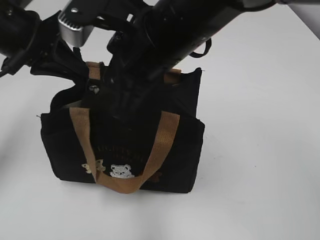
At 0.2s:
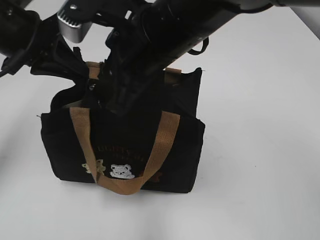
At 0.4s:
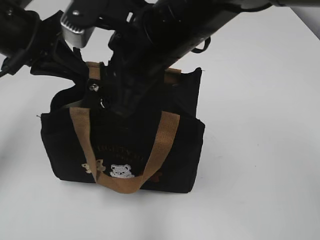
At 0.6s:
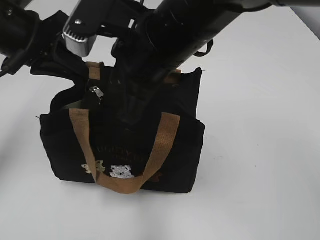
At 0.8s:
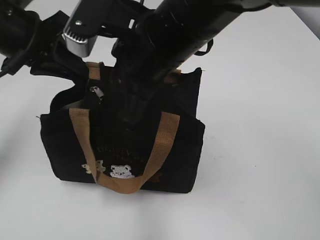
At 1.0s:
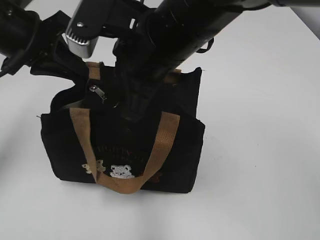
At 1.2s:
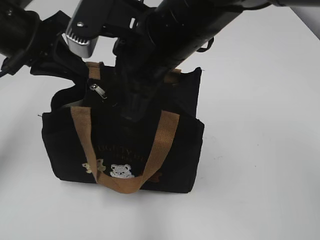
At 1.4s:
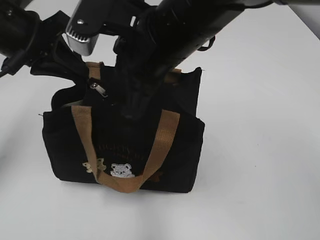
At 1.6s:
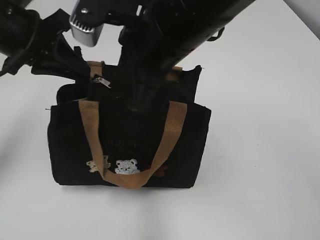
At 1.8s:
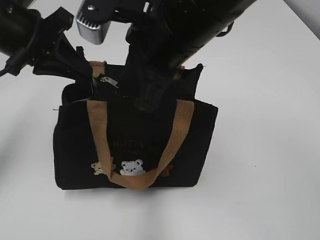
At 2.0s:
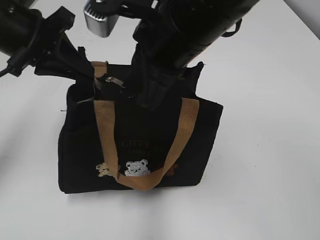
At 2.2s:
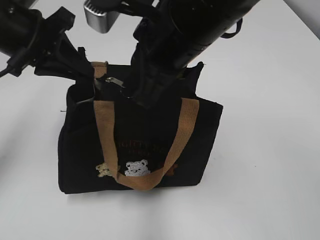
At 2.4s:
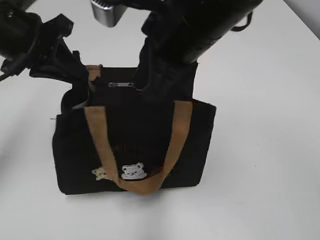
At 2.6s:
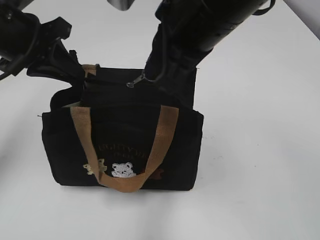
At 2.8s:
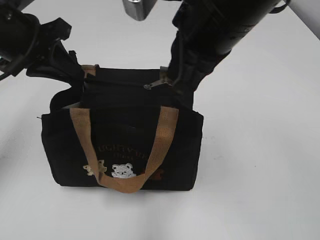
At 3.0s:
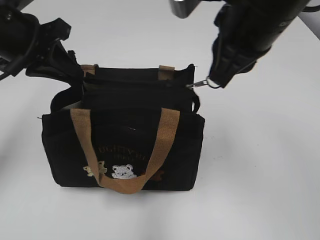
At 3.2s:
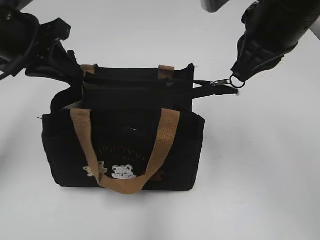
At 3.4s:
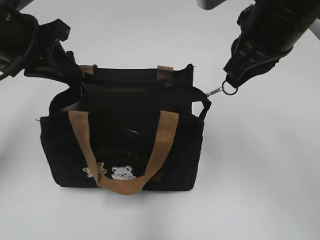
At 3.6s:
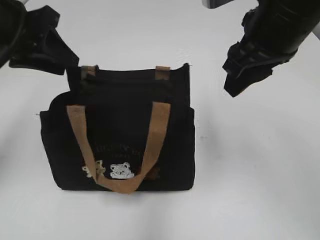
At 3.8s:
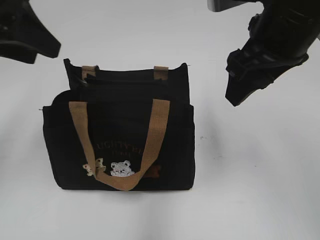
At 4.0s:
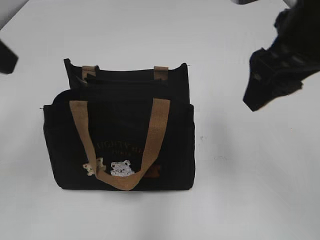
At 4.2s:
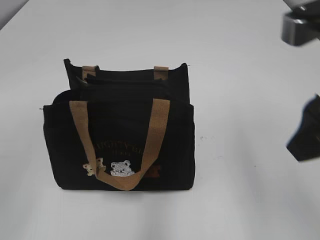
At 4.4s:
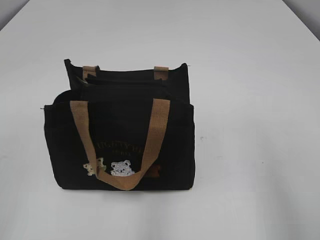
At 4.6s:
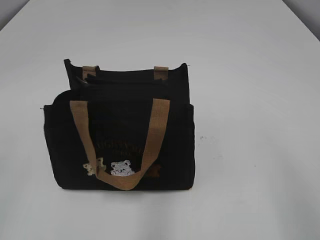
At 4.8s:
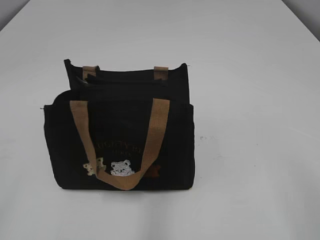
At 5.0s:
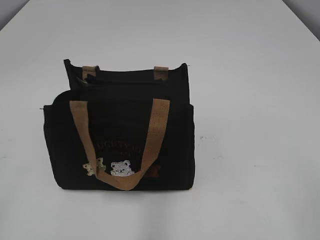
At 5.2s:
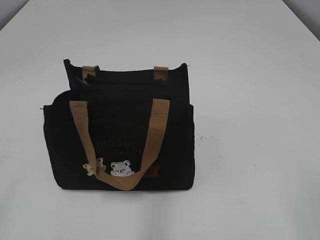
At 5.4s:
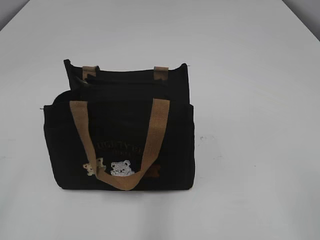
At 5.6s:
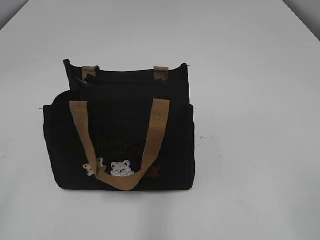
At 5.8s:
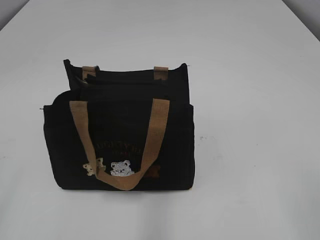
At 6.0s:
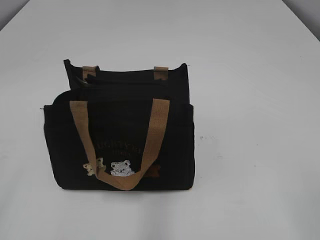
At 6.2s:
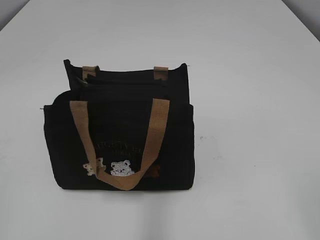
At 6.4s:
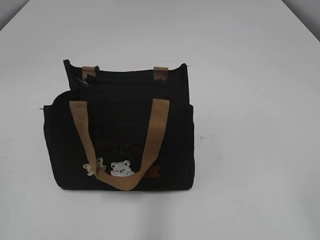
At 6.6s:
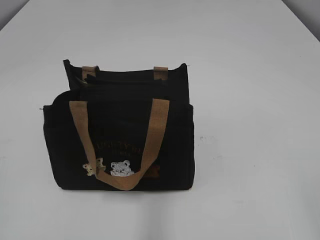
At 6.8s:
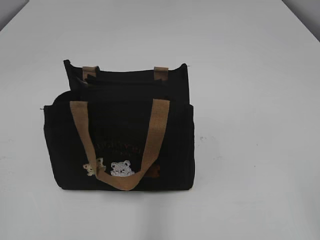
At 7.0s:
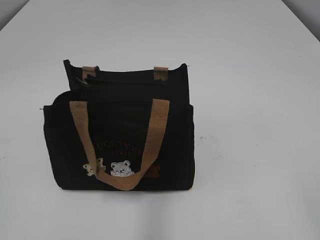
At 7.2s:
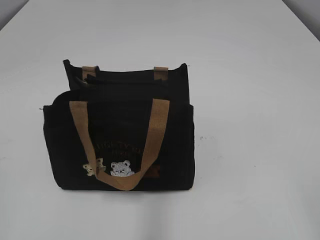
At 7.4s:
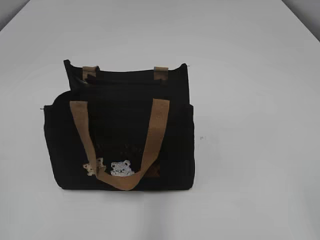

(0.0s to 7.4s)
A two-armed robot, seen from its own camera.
Step, 0.0s - 3.4s: Pull open the zipper with your right hand.
0.0s - 1.4s: The right gripper closes its fingers.
1.4s - 3.0s: The right gripper travels to the right by some 10 cm.
3.0s - 4.4s: The right gripper goes approximately 20 cm backward and to the right, and opens its fingers, while the left gripper is displaced backward by approximately 25 cm, and opens its fingers.

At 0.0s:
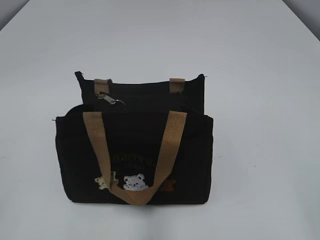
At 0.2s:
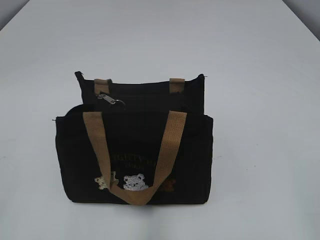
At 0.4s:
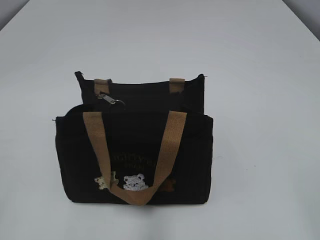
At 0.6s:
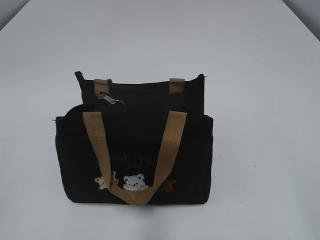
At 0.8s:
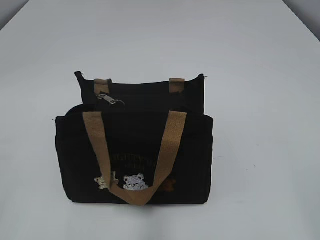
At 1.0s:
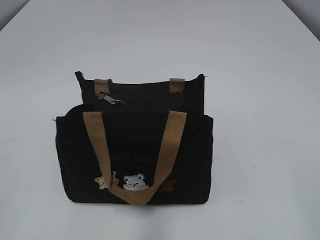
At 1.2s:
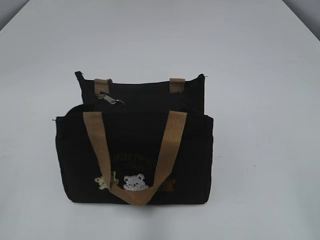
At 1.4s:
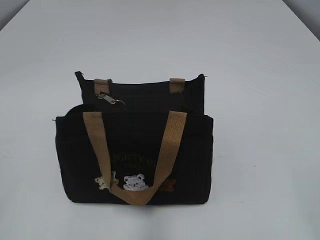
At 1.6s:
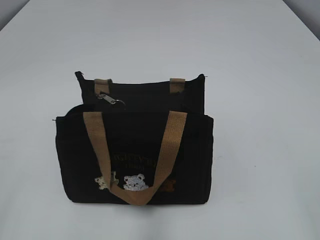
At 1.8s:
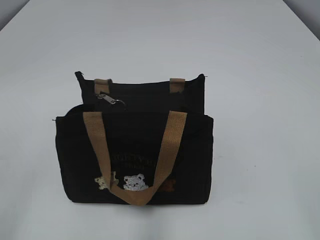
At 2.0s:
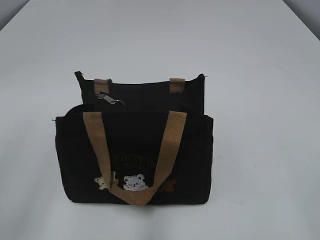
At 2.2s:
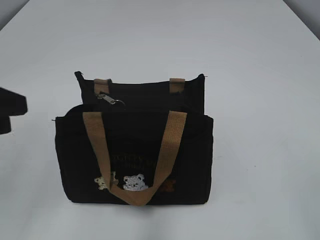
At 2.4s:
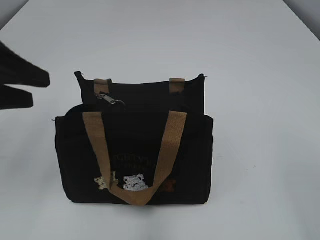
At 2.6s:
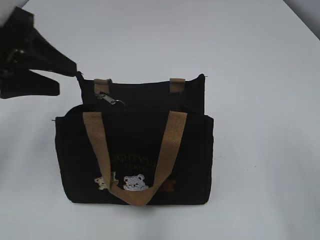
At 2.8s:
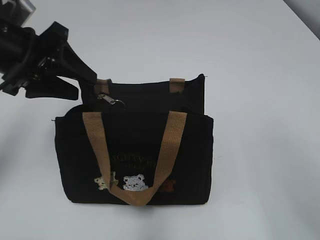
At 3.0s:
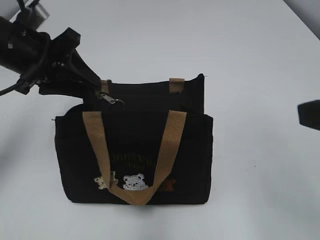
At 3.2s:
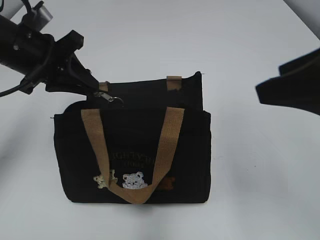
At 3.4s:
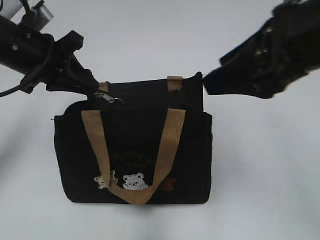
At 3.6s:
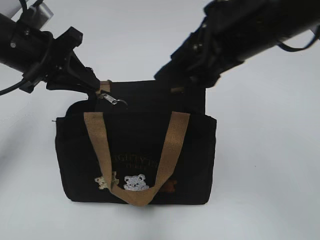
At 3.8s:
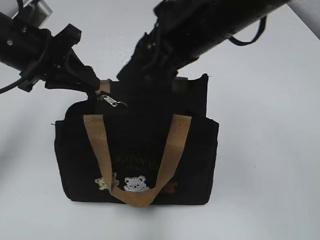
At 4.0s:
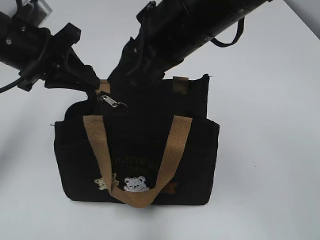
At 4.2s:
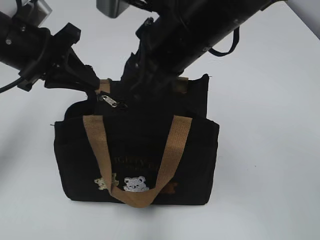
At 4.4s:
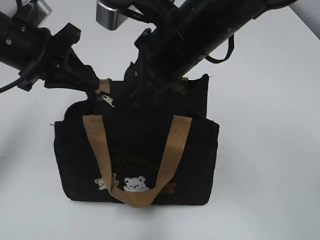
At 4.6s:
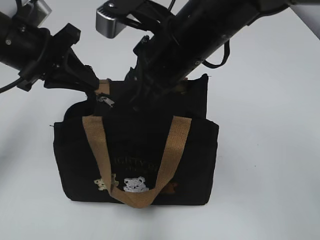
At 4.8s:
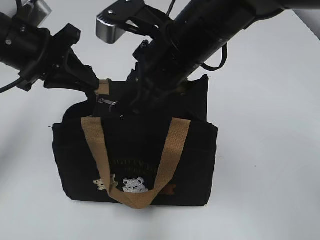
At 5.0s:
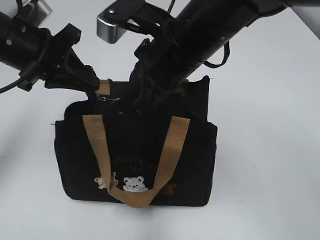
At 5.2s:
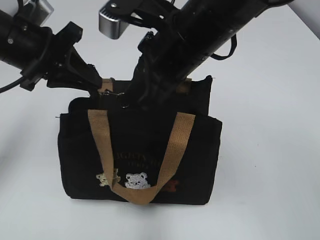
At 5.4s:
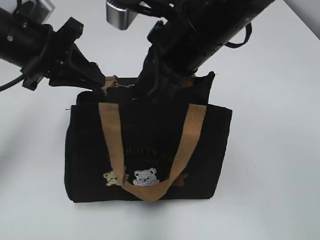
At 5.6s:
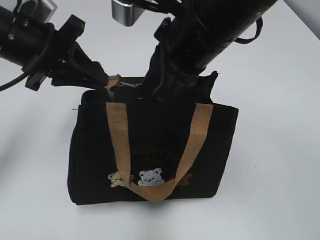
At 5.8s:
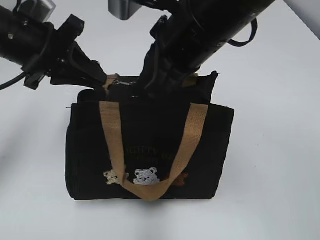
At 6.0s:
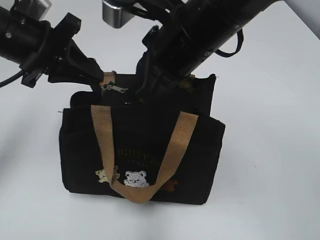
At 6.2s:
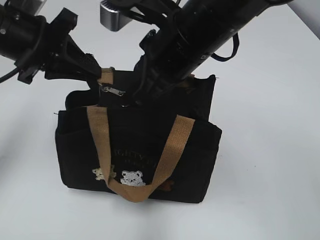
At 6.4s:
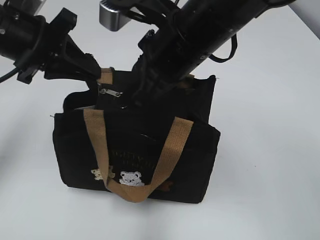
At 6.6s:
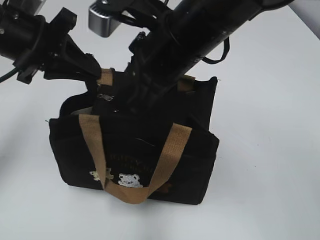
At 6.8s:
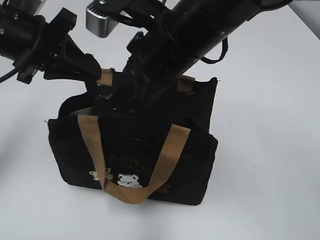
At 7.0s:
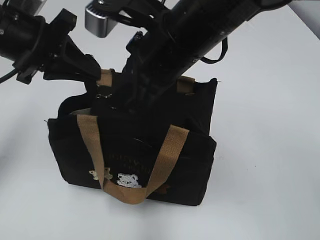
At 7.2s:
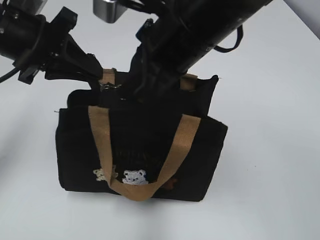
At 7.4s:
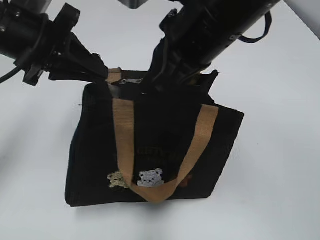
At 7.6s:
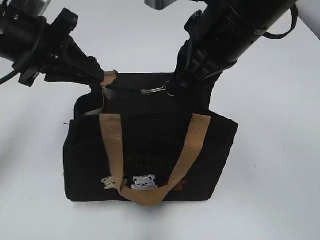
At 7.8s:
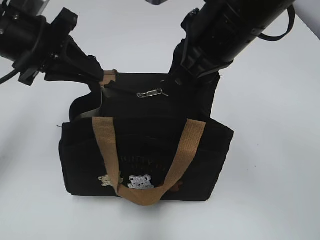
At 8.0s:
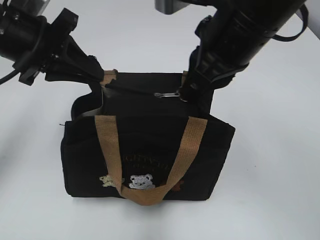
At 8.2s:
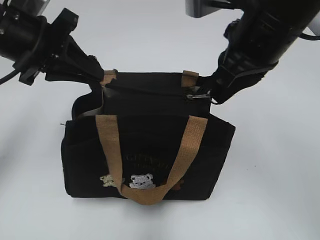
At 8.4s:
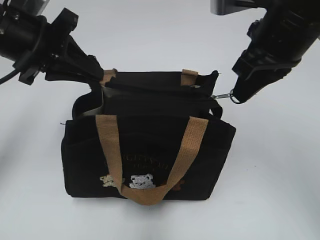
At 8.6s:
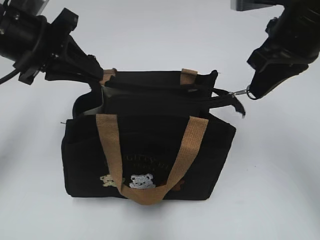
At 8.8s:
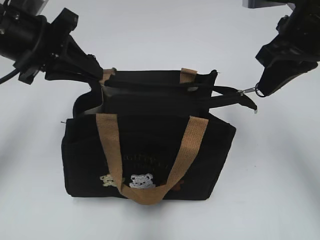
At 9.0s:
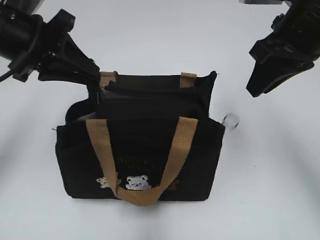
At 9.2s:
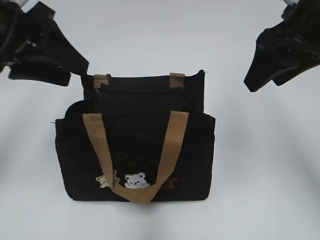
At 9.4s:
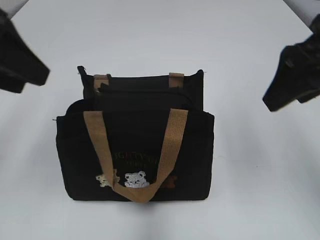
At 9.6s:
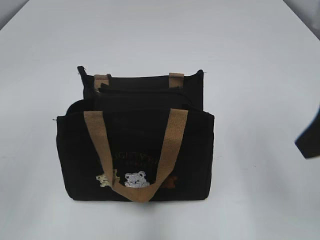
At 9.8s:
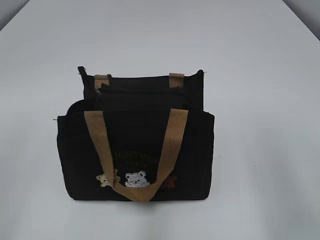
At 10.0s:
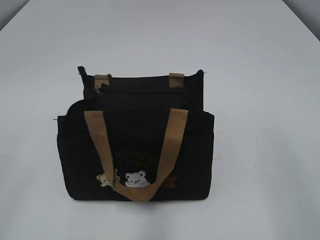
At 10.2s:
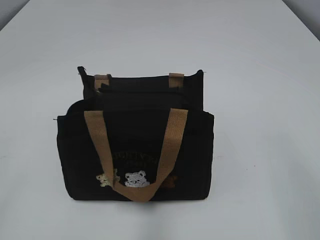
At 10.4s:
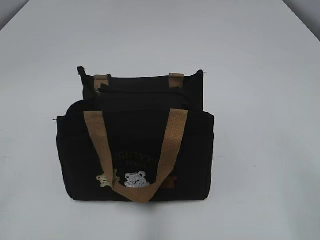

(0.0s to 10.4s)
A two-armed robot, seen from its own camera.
Step, 0.0s - 8.8s: Pull open the zipper with your right hand.
1.4s - 3.0s: The right gripper moves forward, roughly 15 cm. The left gripper shifts approximately 30 cm forward.
3.0s - 4.4s: The right gripper shifts approximately 25 cm to the left and forward, and closes its fingers. The left gripper closes.
4.4s - 6.0s: The right gripper closes its fingers.
7.4s - 9.0s: The right gripper goes roughly 10 cm to the right.
9.0s - 10.4s: The grippers both shift backward by some 30 cm. The left gripper opens; the right gripper opens.

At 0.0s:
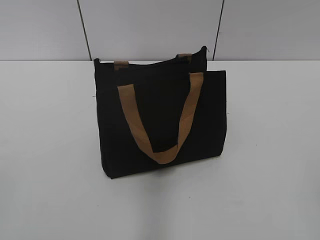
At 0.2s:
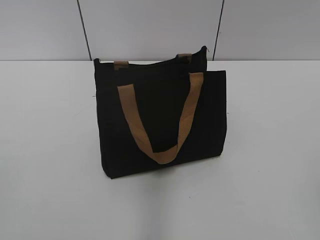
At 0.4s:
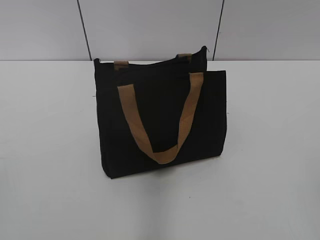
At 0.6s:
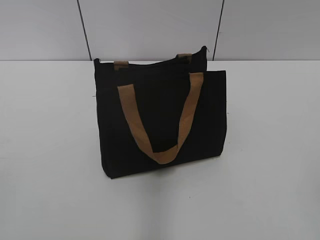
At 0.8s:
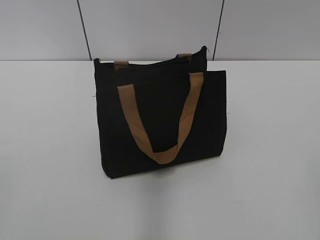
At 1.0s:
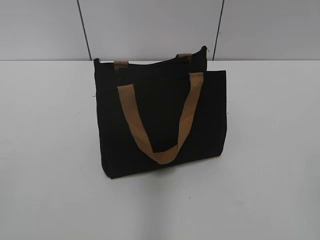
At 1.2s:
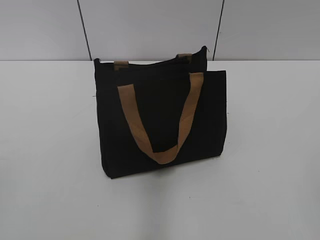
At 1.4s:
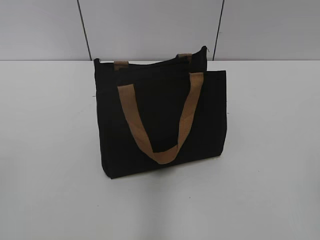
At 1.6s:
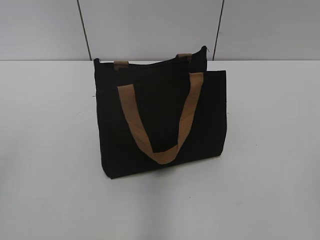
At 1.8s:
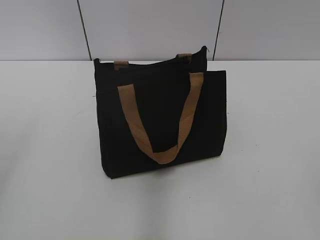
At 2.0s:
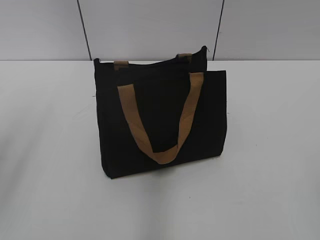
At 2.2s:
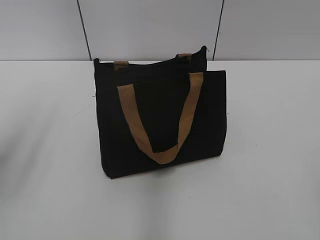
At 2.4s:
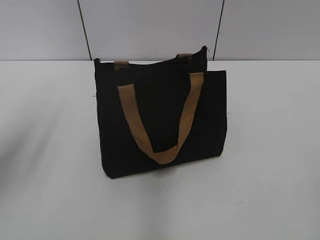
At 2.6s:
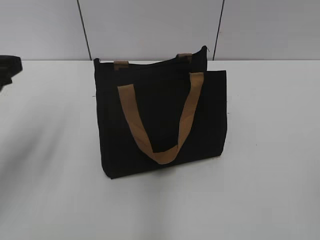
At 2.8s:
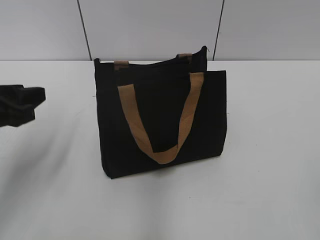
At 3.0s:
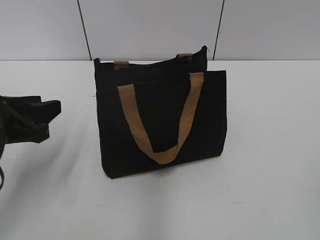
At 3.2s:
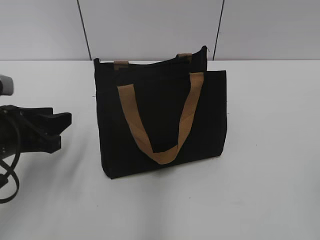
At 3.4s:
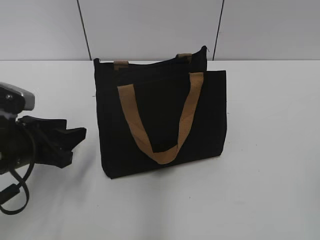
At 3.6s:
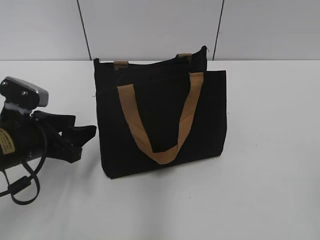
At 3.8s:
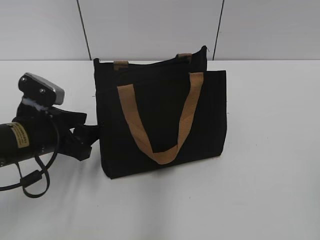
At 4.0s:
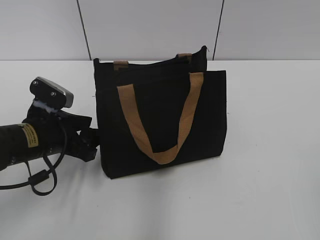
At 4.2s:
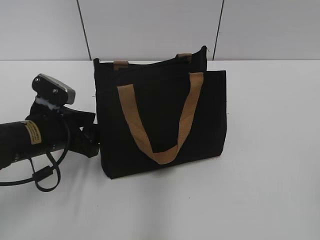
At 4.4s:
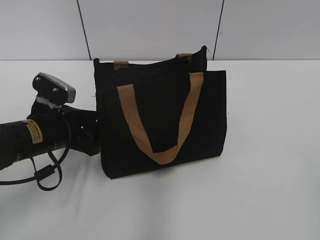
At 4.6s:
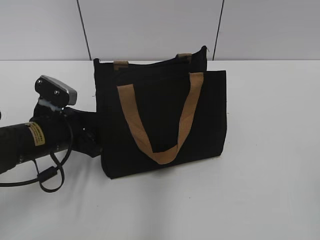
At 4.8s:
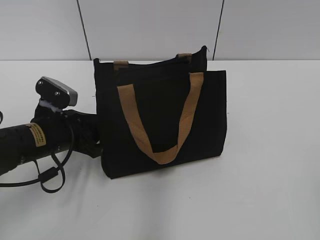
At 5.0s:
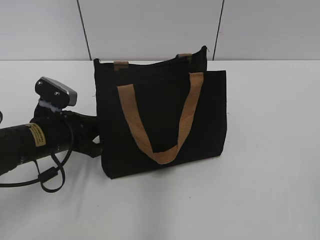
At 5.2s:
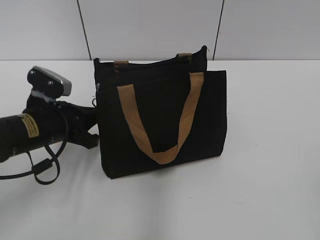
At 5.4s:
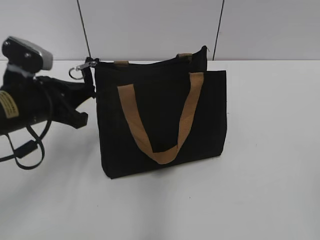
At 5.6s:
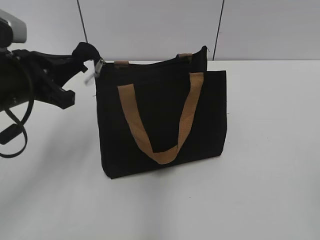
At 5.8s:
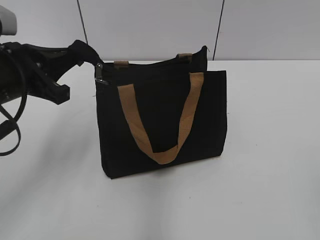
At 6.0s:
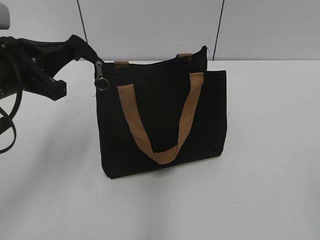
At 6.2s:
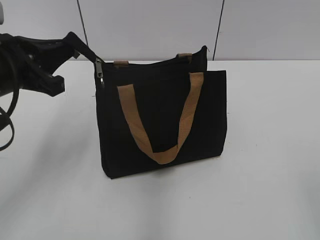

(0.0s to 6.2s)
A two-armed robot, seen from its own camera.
1.6s - 3.2s: The left gripper heads forward, downward and to the right, covering some 25 cm.
3.2s - 4.6s: The left gripper moves forward and downward, some 10 cm.
4.6s - 6.2s: The left gripper moves upward, about 15 cm, and closes.
